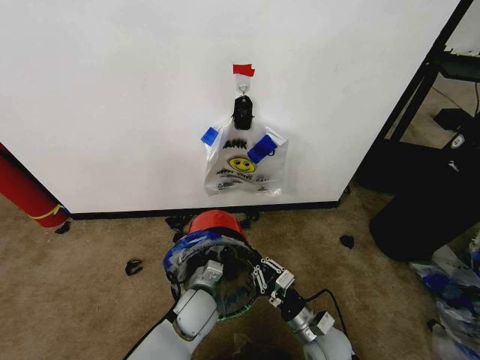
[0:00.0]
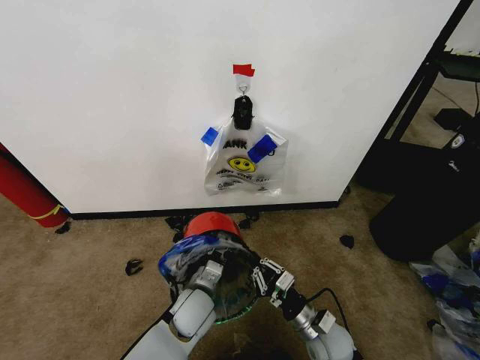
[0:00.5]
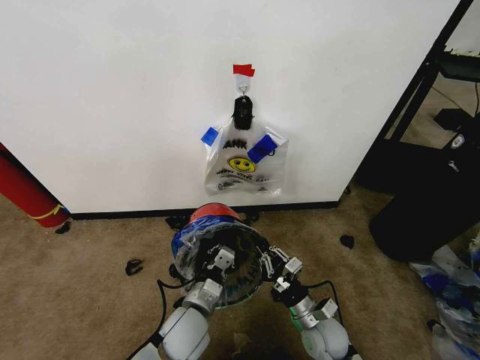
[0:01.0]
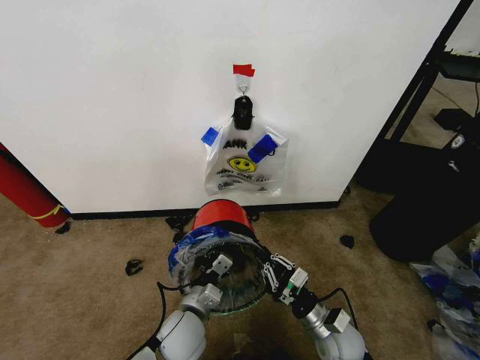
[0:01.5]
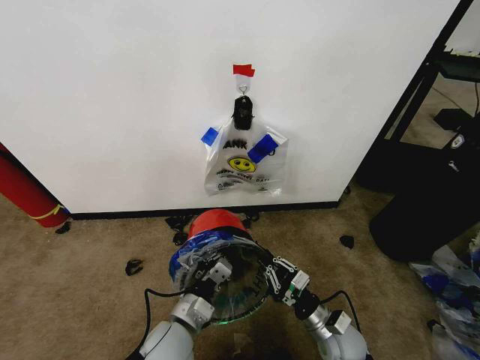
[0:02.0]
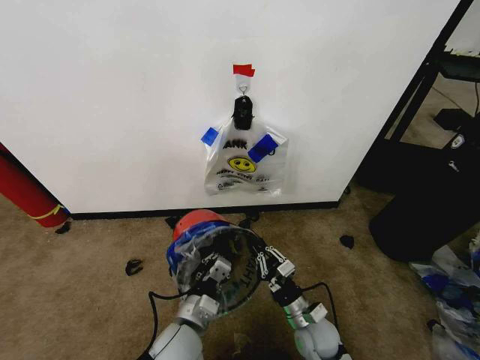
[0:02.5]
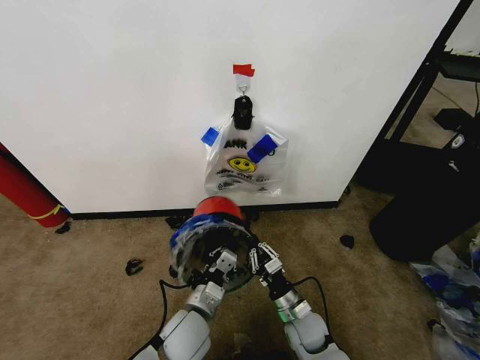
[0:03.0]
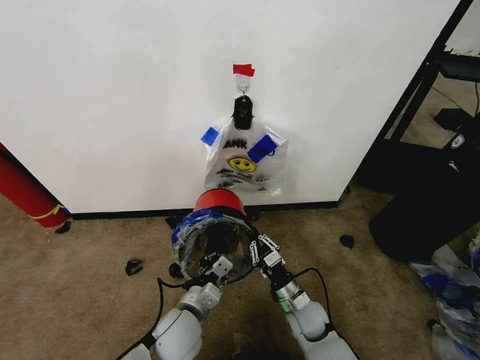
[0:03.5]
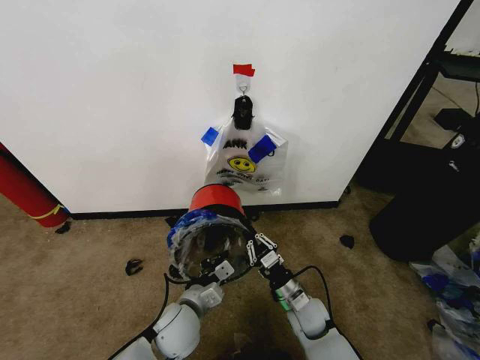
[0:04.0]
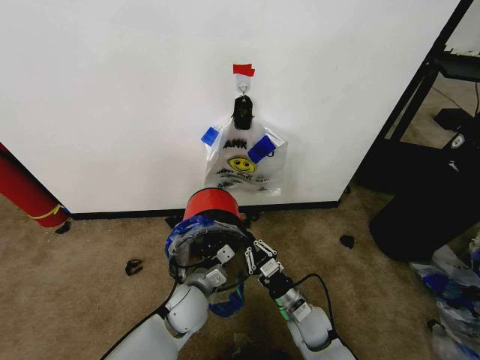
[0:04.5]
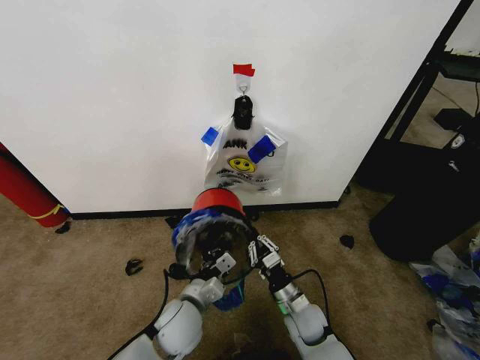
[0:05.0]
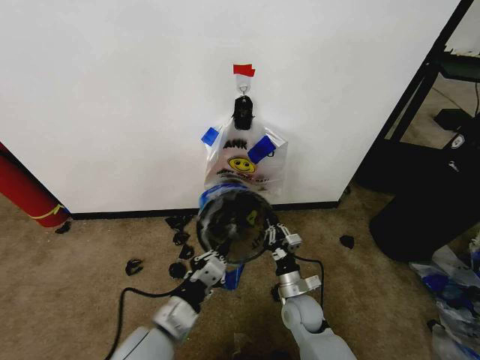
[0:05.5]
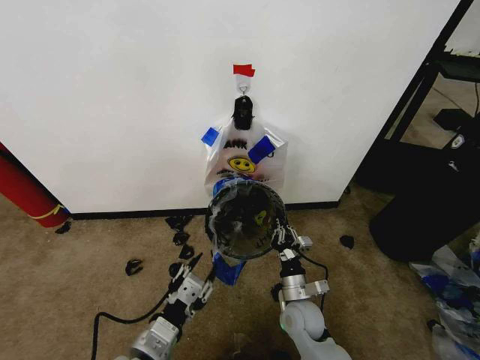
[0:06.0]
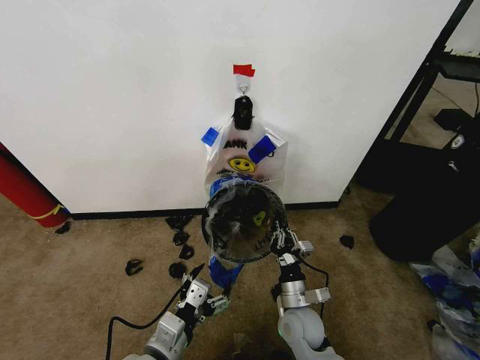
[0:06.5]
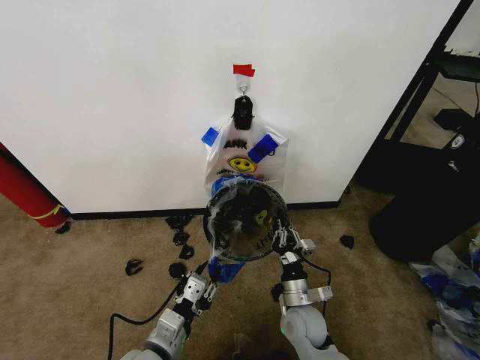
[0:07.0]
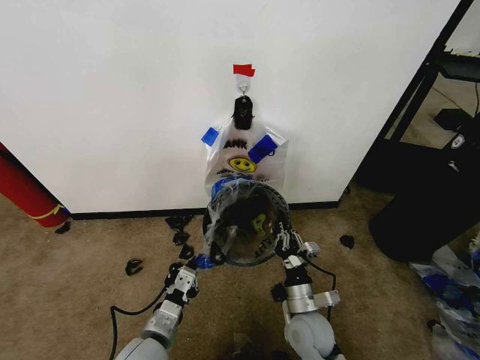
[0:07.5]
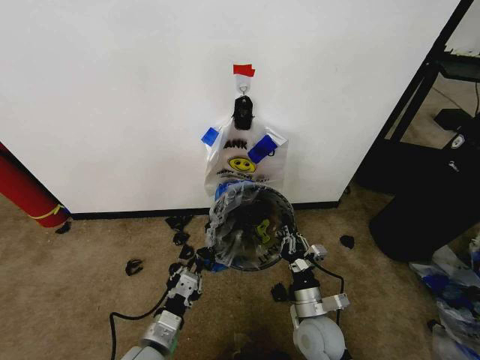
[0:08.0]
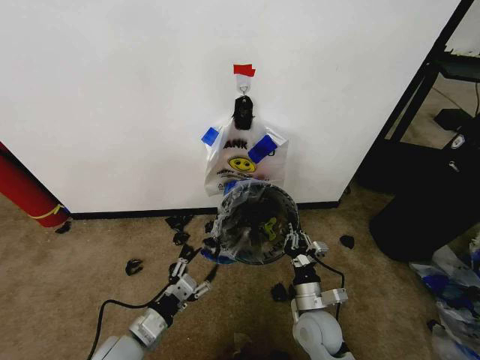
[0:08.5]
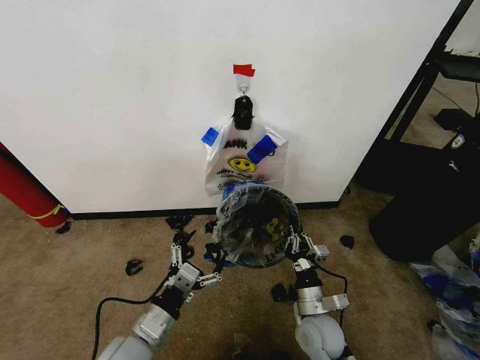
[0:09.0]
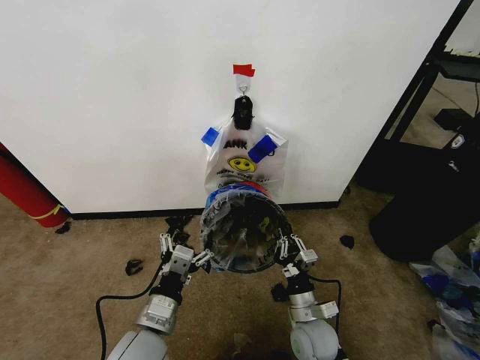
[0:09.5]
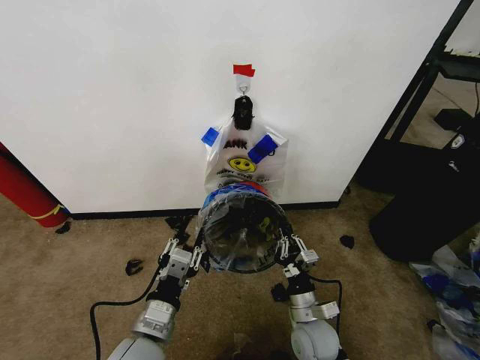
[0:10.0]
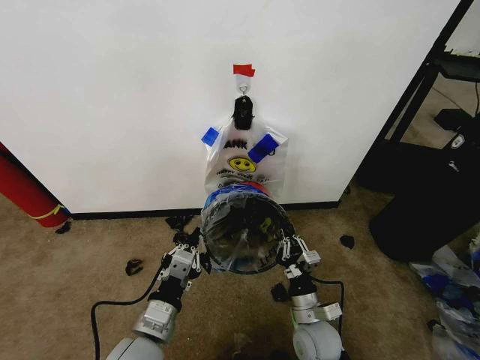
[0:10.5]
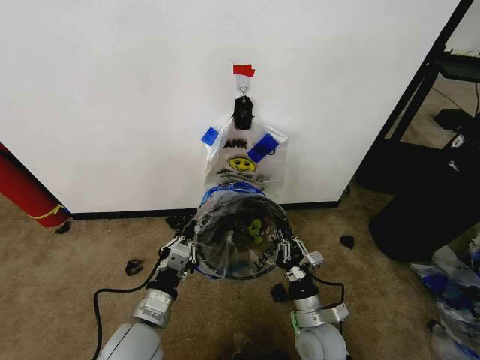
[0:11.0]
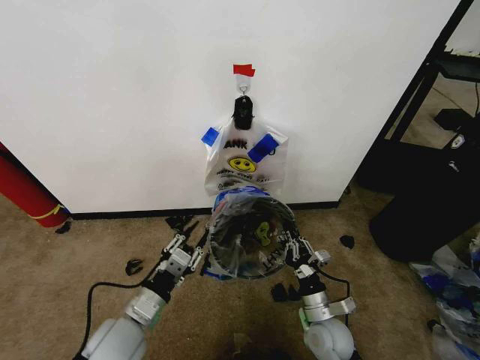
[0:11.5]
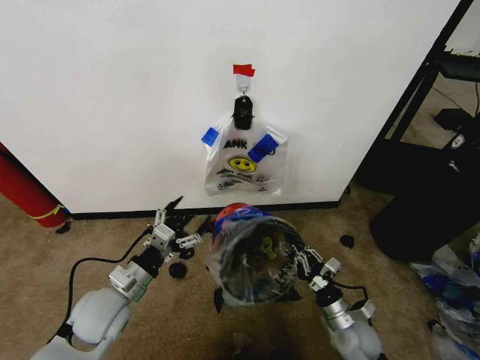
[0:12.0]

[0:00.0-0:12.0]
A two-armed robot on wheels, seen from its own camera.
Task of the whole recording: Pick up the garbage bag from the wall and place it over the trash bin.
0:00.0 to 0:02.0: The left gripper travels backward by roughly 10 cm.
0:02.0 to 0:04.0: The right gripper travels forward and to the left by roughly 10 cm.
0:04.0 to 0:06.0: The left gripper goes roughly 15 cm backward and upward, and opens up.
0:06.0 to 0:08.0: The left gripper travels downward by roughly 5 cm, and opens, then closes once more. The right gripper shifts by roughly 5 cm.
0:08.0 to 0:10.0: The left gripper moves upward, approximately 5 cm, and opens, then closes again.
0:10.0 to 0:12.0: The right gripper goes approximately 10 cm to the right. The left gripper moves to the left and forward, about 15 cm, and opens.

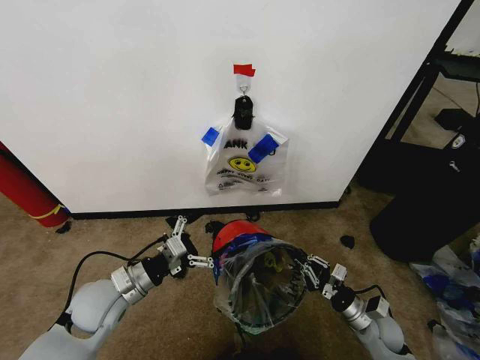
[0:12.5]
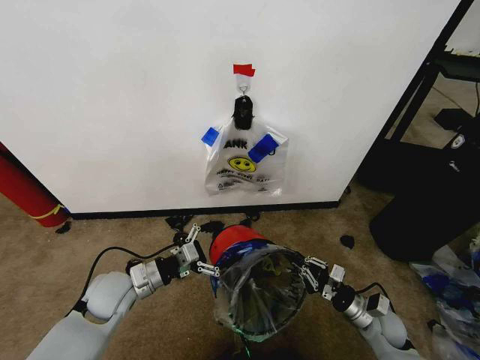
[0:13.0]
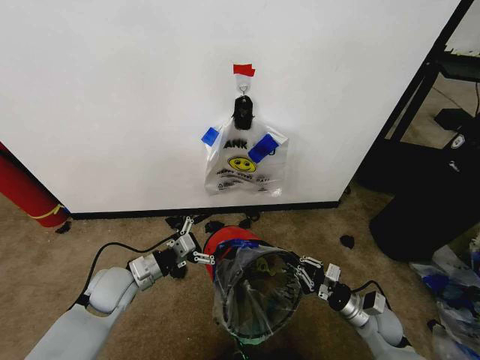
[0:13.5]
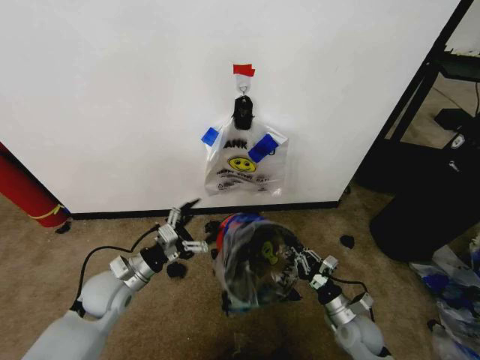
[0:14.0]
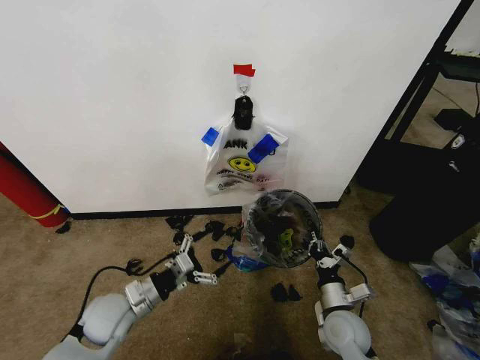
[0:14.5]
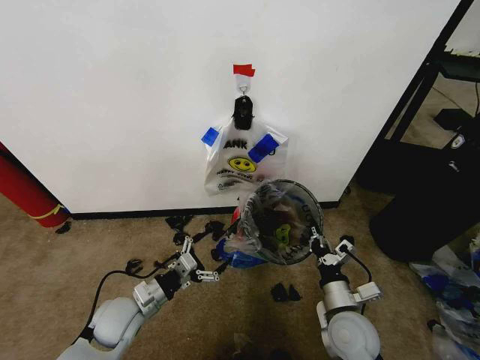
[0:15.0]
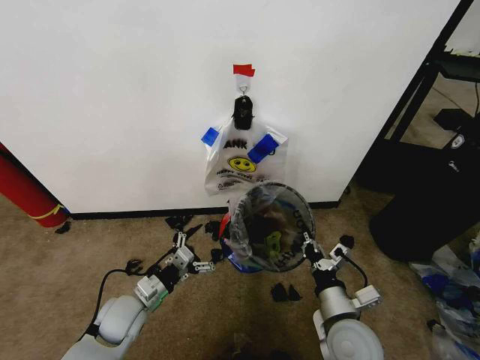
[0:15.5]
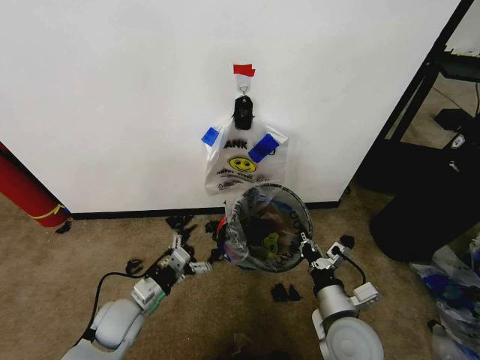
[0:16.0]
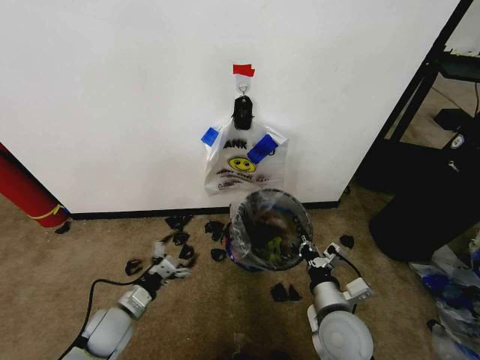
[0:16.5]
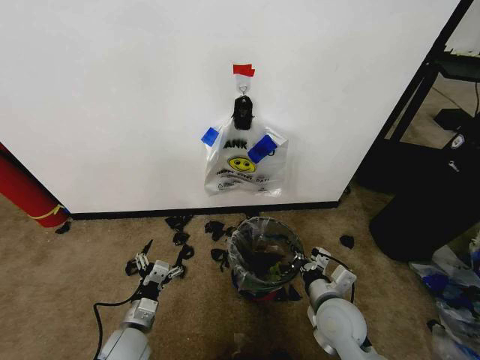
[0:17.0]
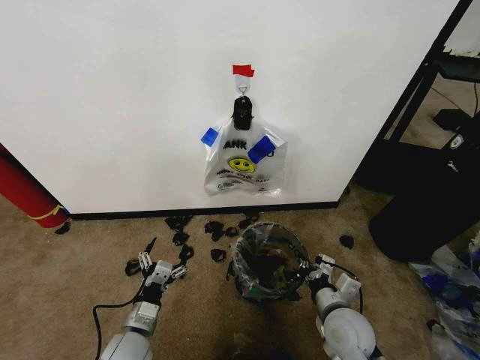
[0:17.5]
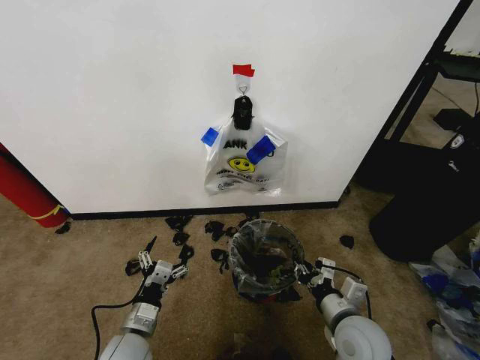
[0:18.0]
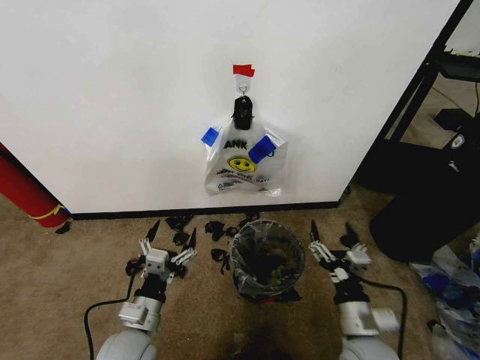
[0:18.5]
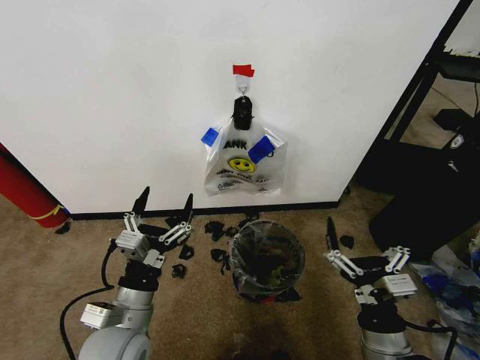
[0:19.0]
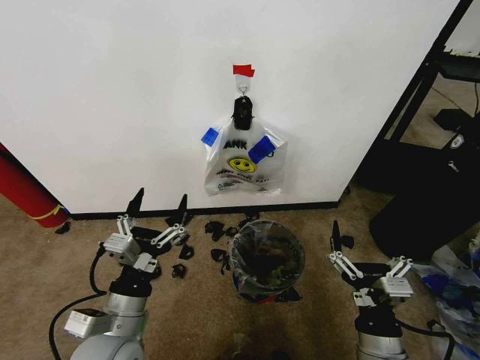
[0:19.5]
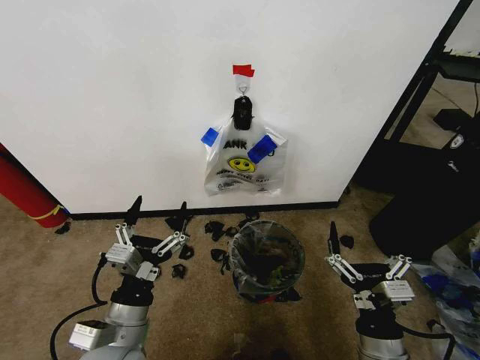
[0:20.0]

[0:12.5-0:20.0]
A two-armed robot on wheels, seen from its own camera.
Task of the whole recording: Pick up the garbage bag from the wall and place it over the trash bin.
0:12.5 to 0:14.5: The right gripper goes some 10 cm to the left.
0:14.5 to 0:16.5: The right gripper is displaced upward by approximately 10 cm. The left gripper shifts some 5 cm downward.
0:16.5 to 0:18.0: The left gripper heads to the right and backward, covering approximately 10 cm.
0:18.0 to 0:20.0: The left gripper moves upward, some 10 cm. Meanwhile the right gripper shifts roughly 10 cm backward, and opens its fingers.

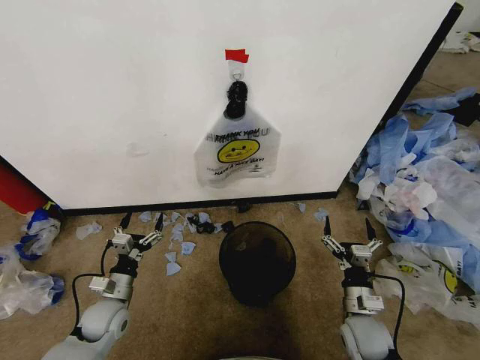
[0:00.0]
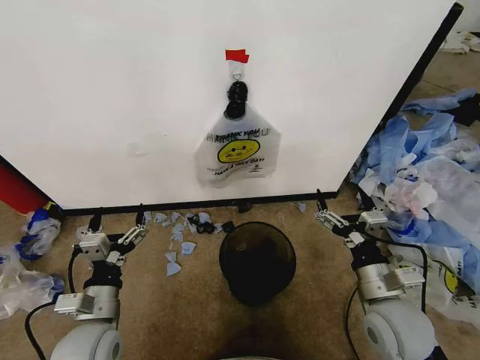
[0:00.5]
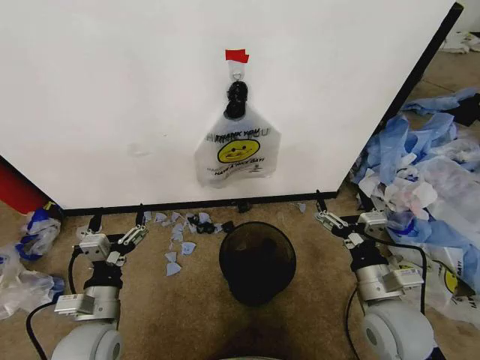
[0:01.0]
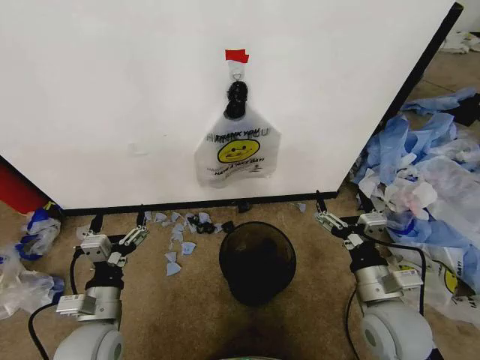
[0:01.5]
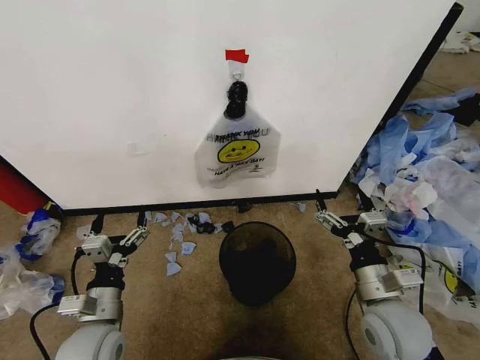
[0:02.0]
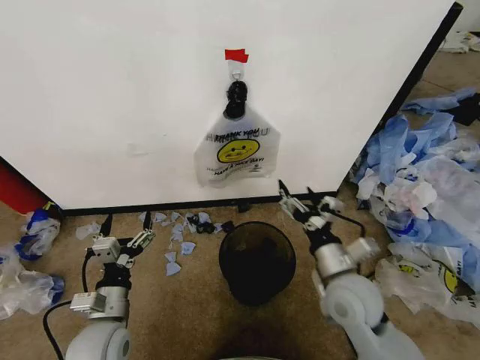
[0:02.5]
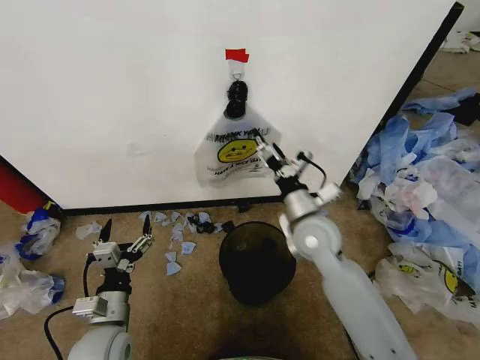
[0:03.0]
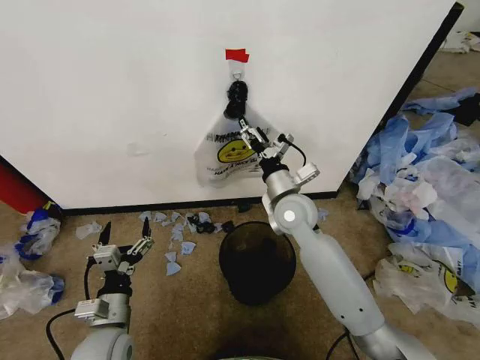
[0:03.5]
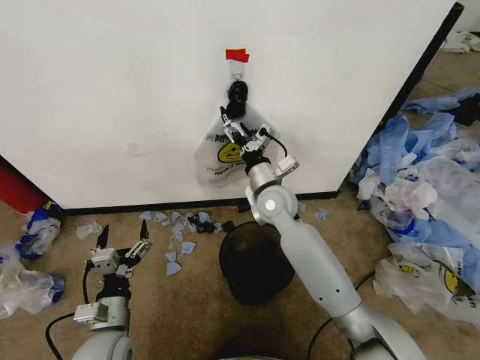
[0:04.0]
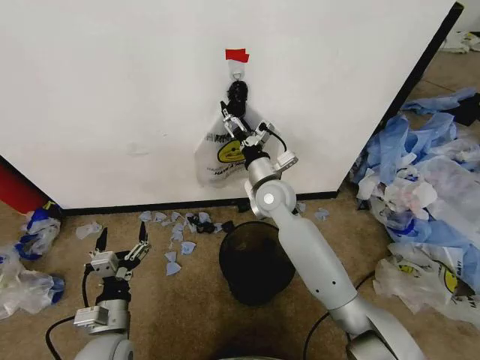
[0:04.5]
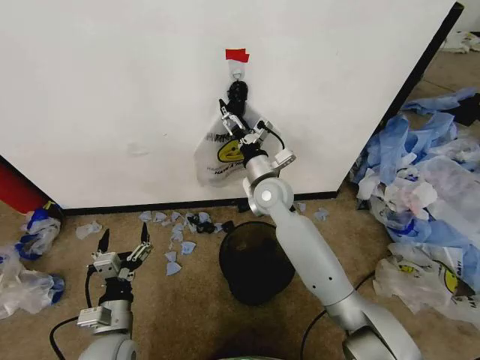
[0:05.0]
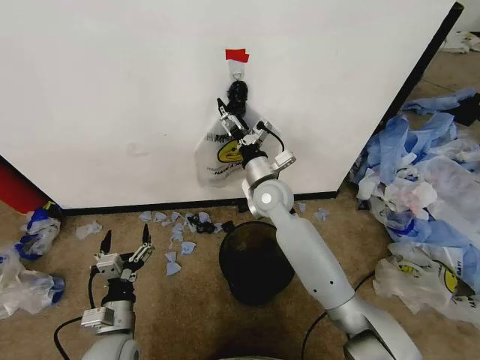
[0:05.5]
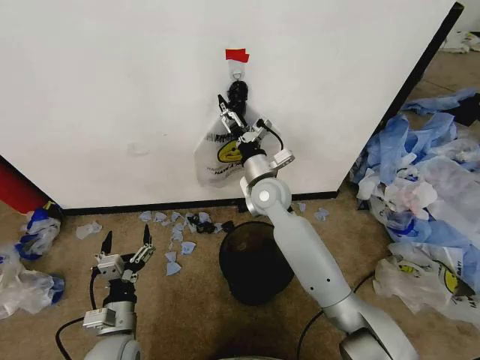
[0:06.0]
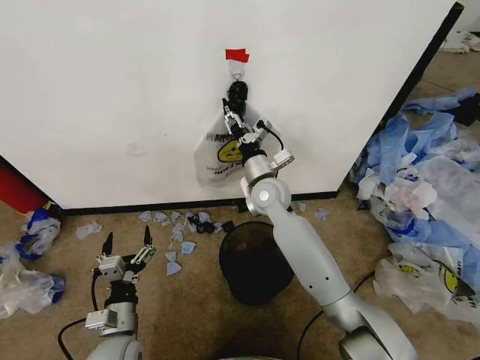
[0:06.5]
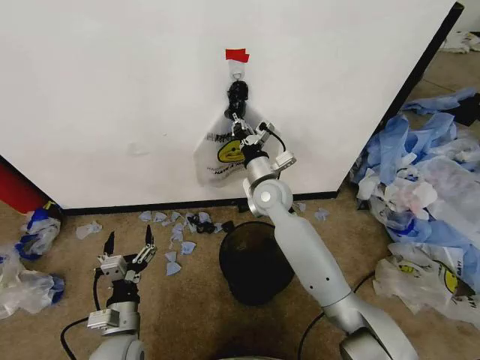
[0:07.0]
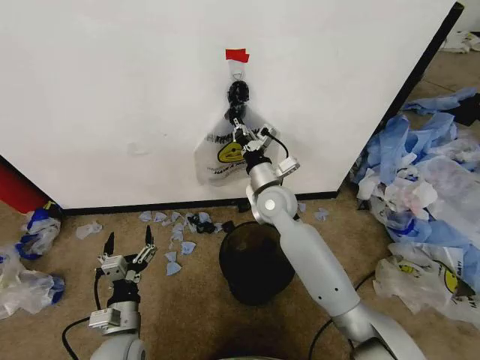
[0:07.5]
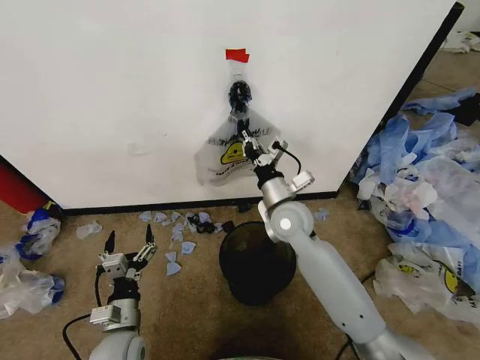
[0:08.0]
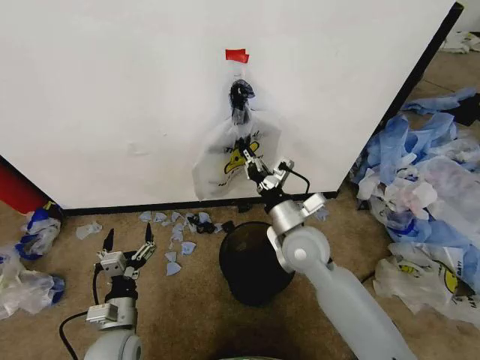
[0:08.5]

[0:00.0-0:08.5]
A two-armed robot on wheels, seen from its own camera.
Task of the whole recording: Pick up the garbage bag from the wall and place it over the trash bin.
0:02.0 to 0:04.0: The right gripper is displaced forward and to the left by some 30 cm.
0:04.0 to 0:06.5: The right gripper closes its fingers.
0:06.5 to 0:08.5: The right gripper moves backward and to the right, some 15 cm, and closes its fingers.
